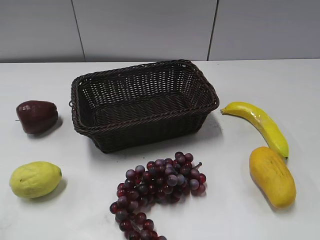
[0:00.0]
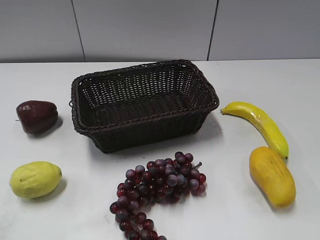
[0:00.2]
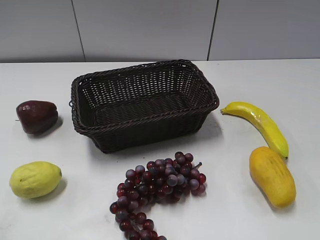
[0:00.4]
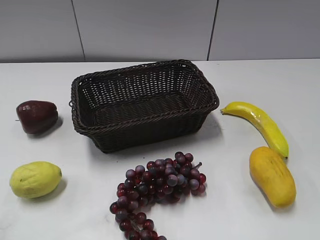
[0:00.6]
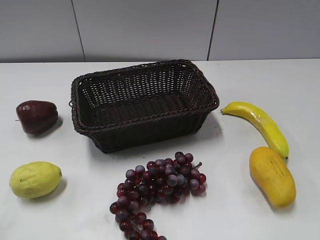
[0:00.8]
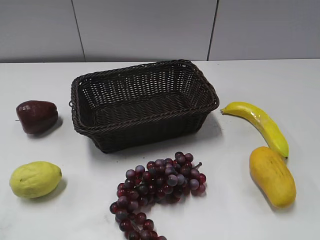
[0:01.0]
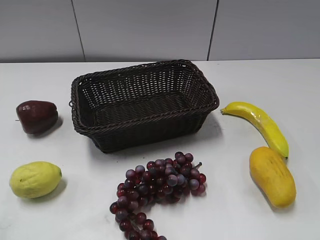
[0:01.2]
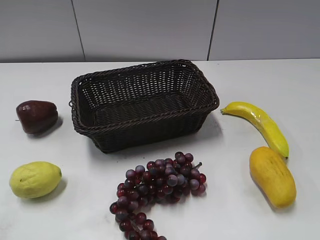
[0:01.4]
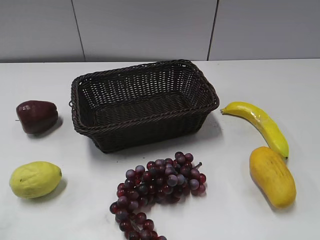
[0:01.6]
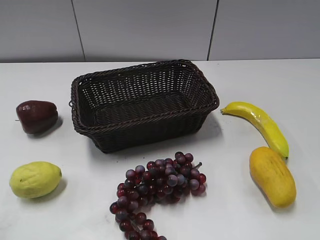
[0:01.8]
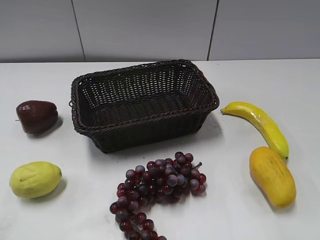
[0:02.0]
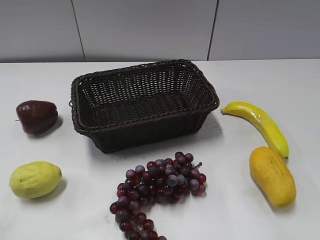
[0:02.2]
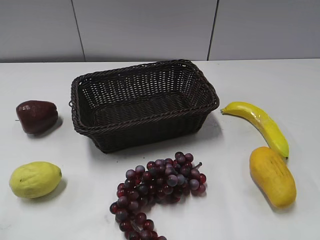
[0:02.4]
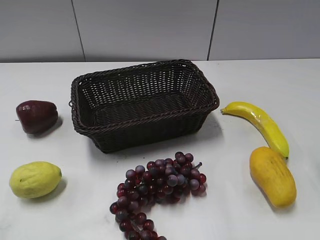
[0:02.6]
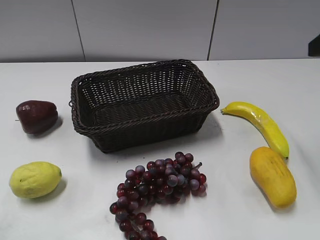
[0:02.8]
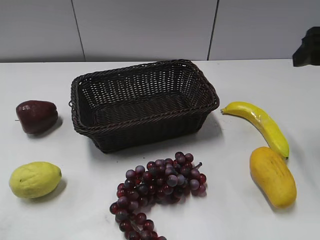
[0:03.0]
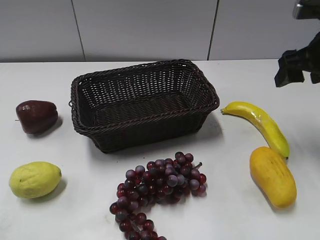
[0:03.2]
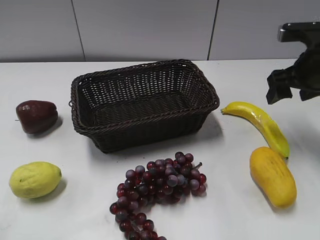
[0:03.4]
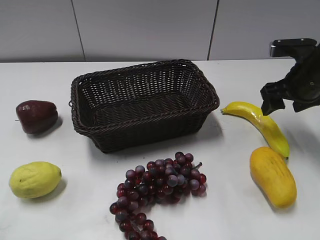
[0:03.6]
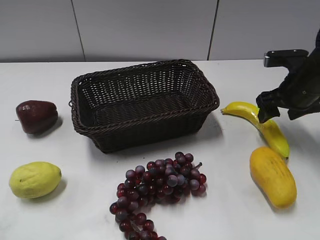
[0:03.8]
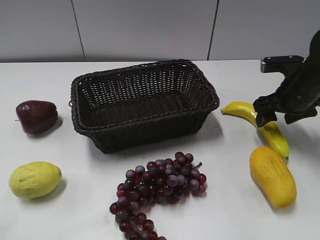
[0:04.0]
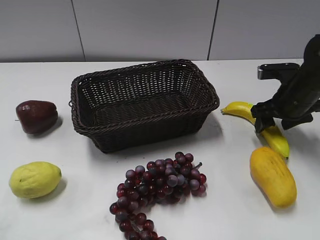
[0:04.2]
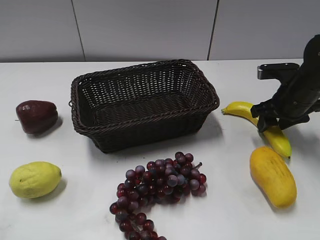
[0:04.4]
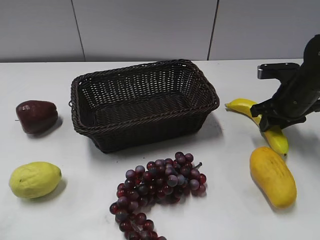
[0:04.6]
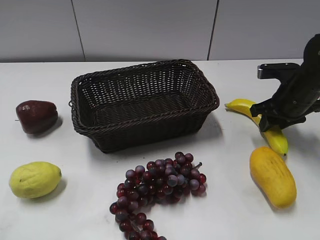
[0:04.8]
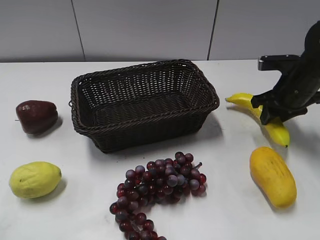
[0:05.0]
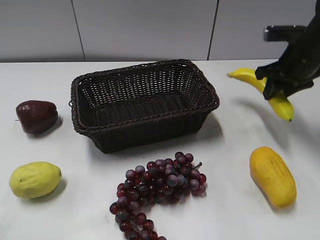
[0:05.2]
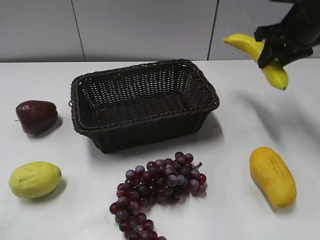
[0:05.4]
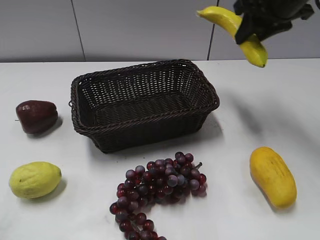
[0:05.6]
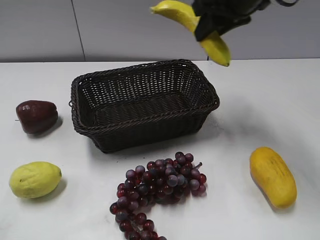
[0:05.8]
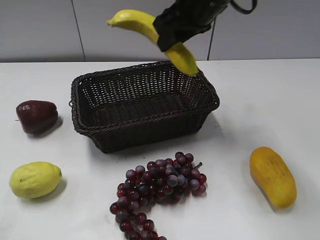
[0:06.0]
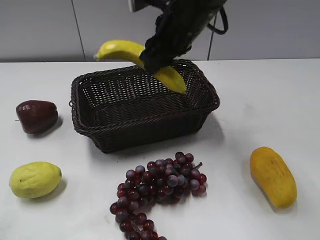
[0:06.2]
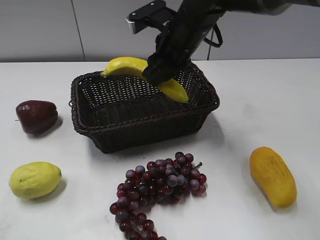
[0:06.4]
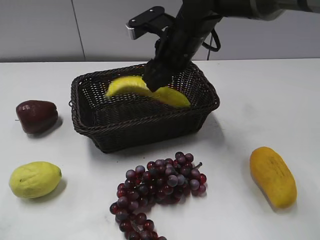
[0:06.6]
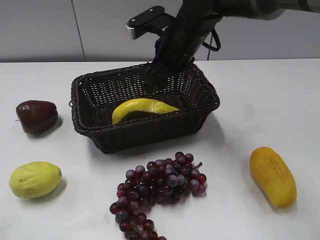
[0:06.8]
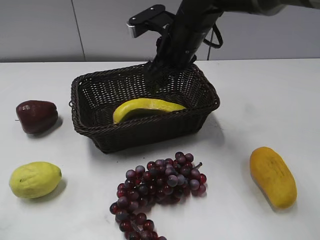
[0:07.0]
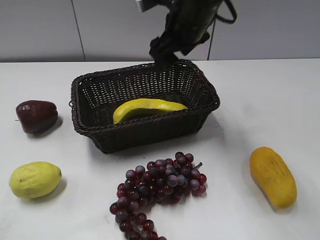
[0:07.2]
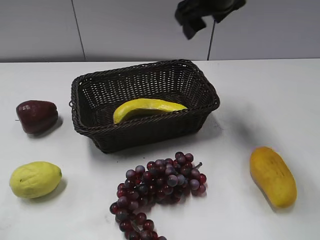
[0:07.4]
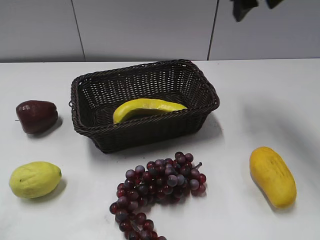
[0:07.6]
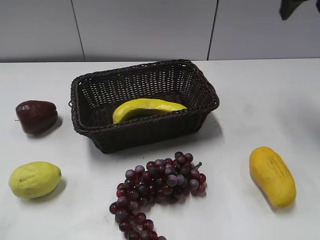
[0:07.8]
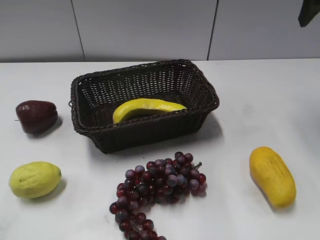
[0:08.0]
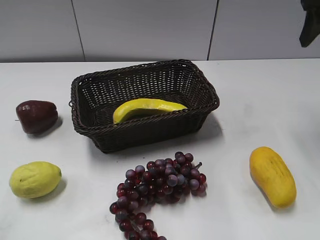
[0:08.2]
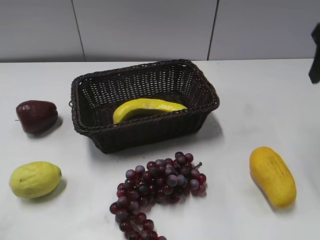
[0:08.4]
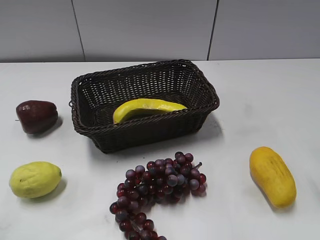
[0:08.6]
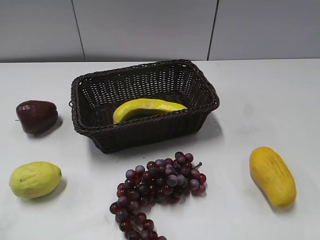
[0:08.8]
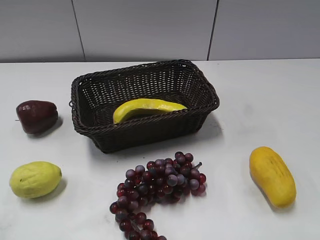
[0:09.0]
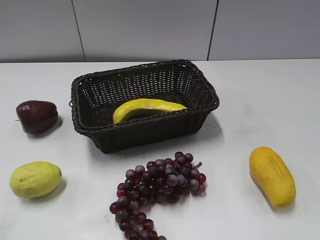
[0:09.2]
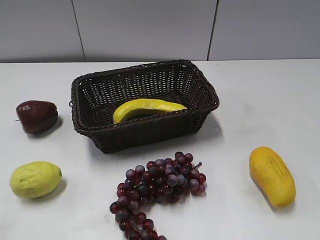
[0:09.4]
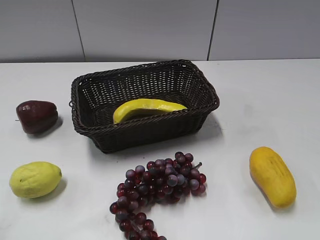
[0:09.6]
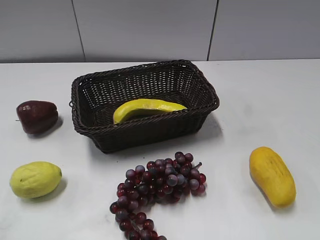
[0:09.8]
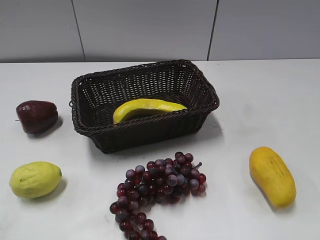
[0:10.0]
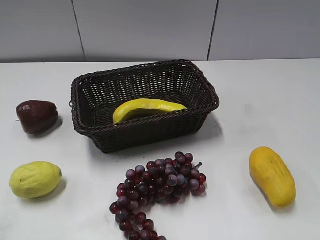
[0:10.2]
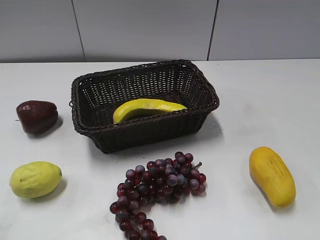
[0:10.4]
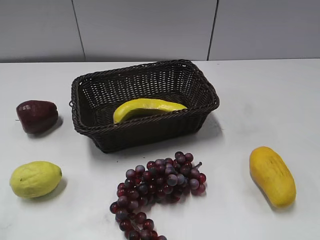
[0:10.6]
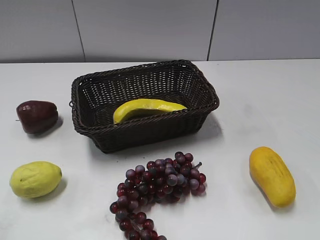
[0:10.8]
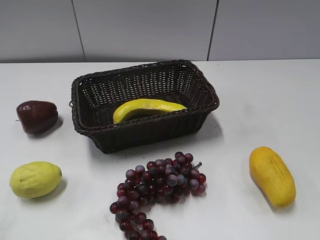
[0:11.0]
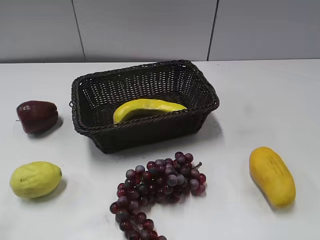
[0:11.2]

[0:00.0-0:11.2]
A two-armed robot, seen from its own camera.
Step, 0:02.6 to 0:04.4: Grasp the banana with right gripper.
Step, 0:04.8 to 0:06.8: Place the banana in the basket with right gripper.
0:01.6 to 0:03.2: The right gripper is displaced forward by about 35 cm.
0:03.2 to 0:04.8: The right gripper moves downward, roughly 10 cm, and closes.
0:04.8 to 0:06.4: The right gripper shifts some 25 cm to the left and upward.
0:06.4 to 0:08.0: The right gripper heads to the right and upward, covering roughly 25 cm, and opens its fingers.
0:08.0 to 0:09.6: The right gripper shifts approximately 35 cm backward.

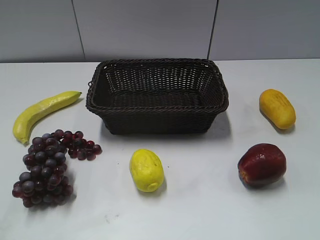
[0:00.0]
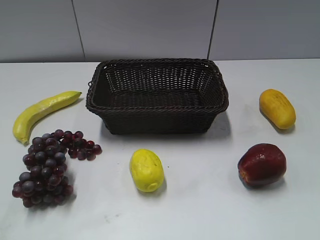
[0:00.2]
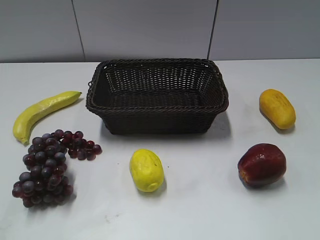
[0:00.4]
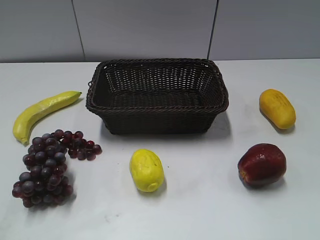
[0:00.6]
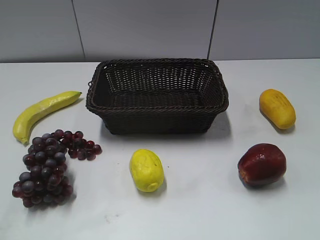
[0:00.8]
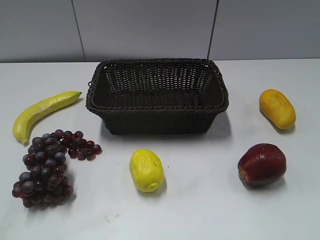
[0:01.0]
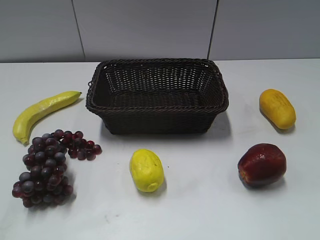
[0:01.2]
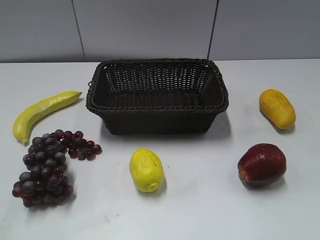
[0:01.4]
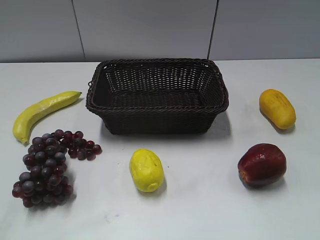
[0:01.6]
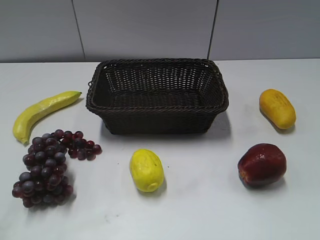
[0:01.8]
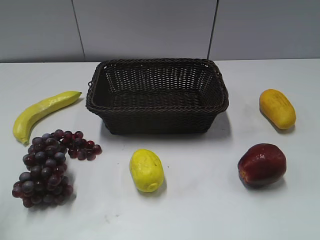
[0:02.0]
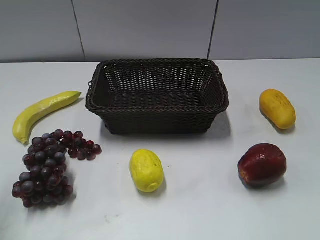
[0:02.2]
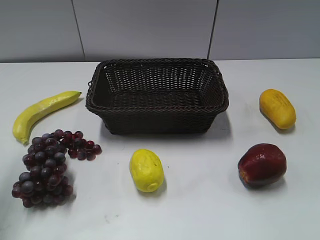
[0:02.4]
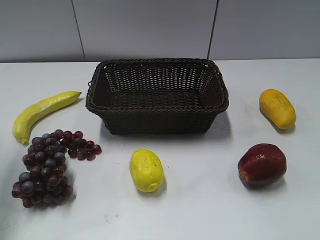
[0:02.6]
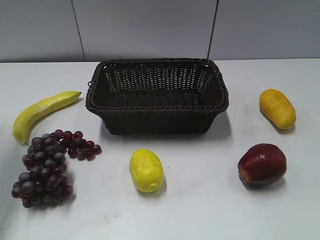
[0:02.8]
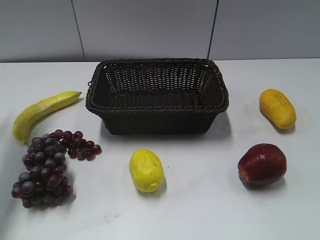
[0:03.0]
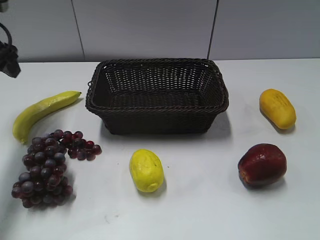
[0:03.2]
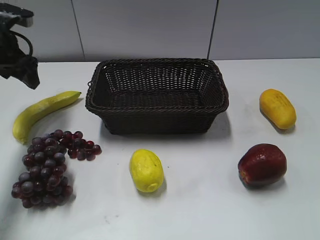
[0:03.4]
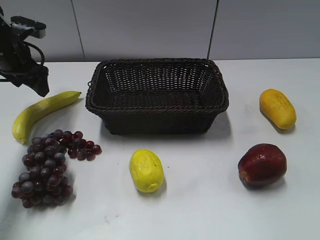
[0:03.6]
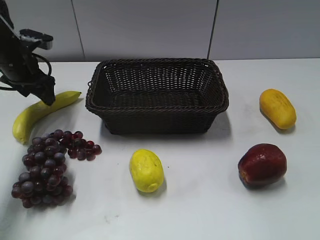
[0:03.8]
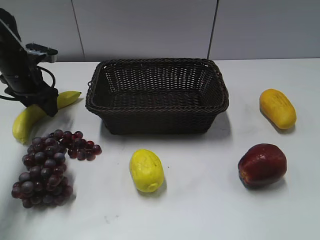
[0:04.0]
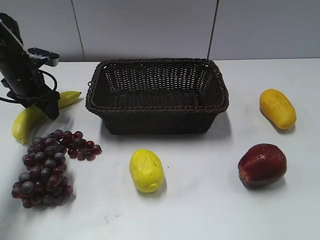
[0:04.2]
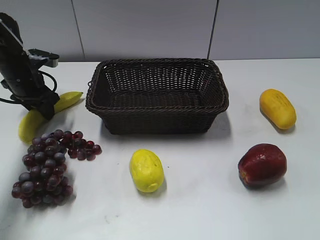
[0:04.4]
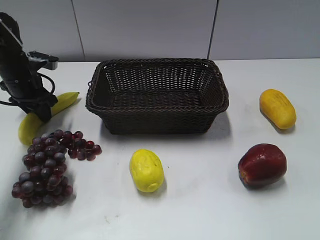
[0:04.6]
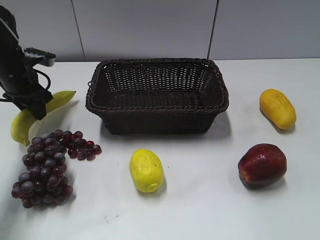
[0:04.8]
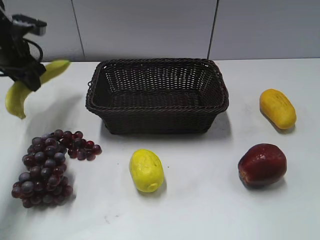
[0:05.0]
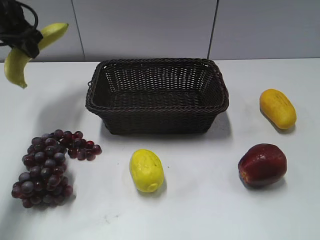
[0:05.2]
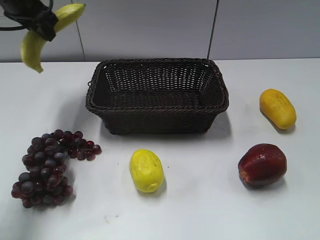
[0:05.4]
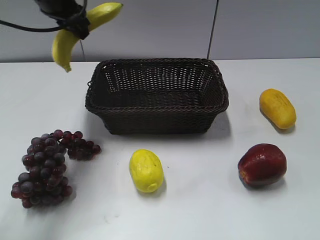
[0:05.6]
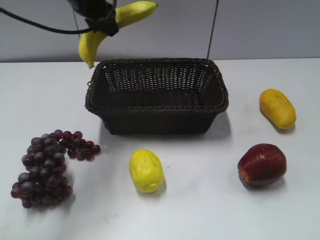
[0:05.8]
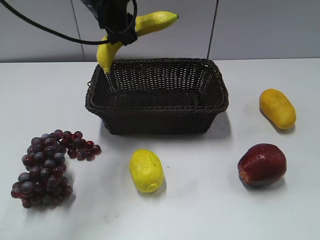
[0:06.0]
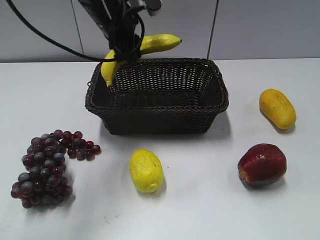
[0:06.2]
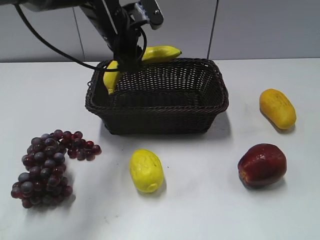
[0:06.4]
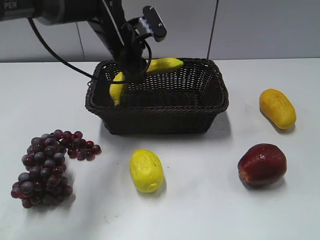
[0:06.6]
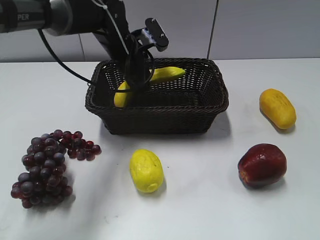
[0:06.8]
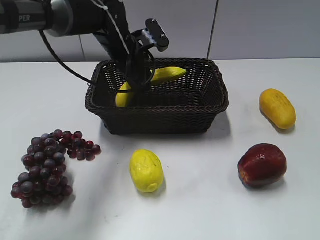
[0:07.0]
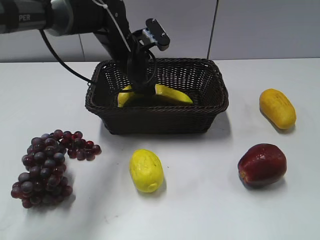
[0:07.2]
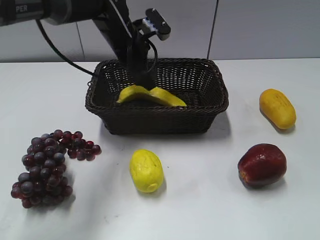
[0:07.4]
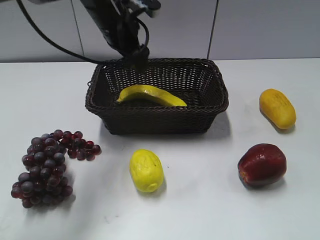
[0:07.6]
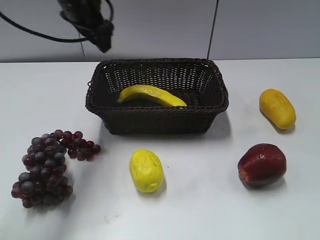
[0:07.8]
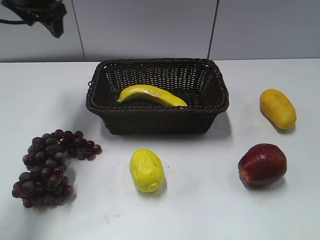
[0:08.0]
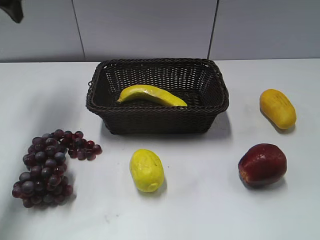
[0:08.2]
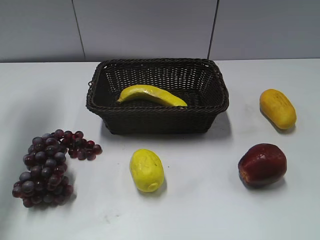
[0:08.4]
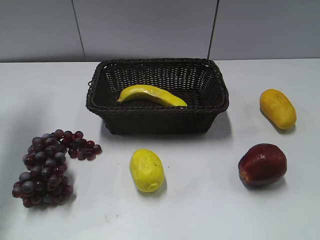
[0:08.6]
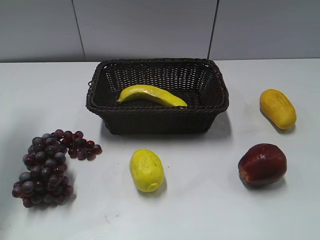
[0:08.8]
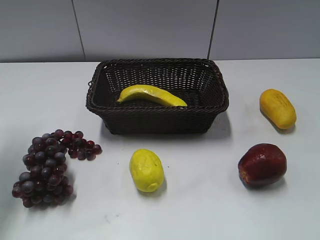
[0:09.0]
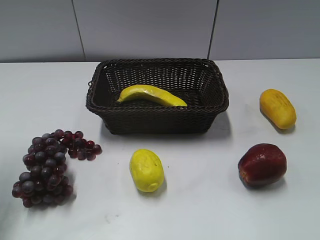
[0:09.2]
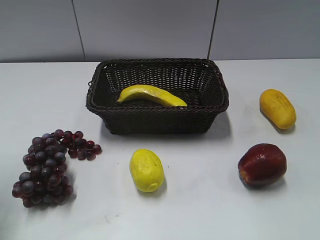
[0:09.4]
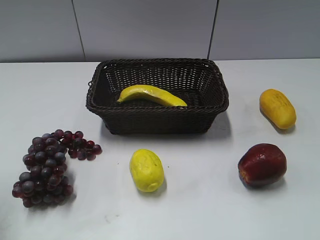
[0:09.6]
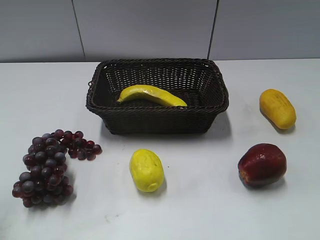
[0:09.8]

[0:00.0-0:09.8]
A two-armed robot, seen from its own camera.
Step, 0:02.6 to 0:04.6: Grasp the banana with left gripper.
Step, 0:04.8 to 0:07.2: Place the banana in the basket with left gripper.
0:01.4 to 0:02.8: The left gripper goes roughly 30 cm forward.
0:02.8 to 0:04.2: The left gripper goes some 20 cm downward and forward.
0:04.2 to 0:05.6: The left gripper heads upward and to the right, covering approximately 20 cm, and closes.
0:05.6 to 0:07.0: The left gripper travels downward and to the right by roughly 15 cm.
0:07.0 to 0:08.4: The left gripper heads to the left and upward, covering about 30 cm, and opens its fingers.
0:08.4 to 0:09.8: The left gripper is displaced backward by about 30 cm.

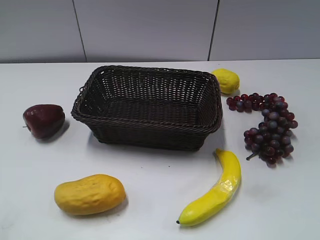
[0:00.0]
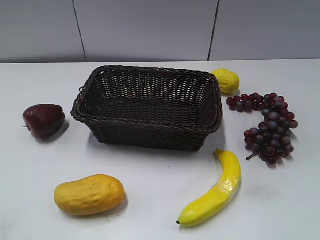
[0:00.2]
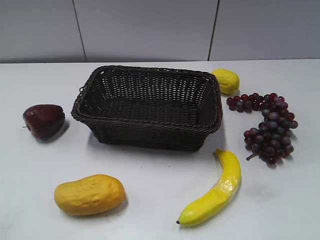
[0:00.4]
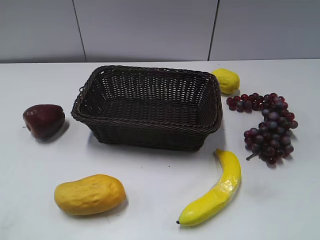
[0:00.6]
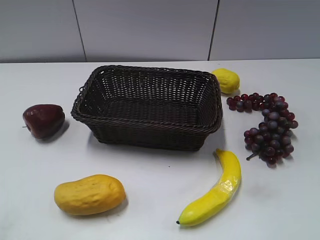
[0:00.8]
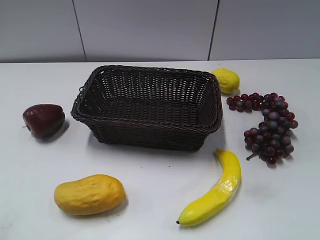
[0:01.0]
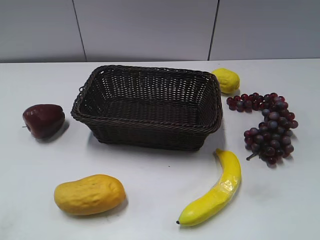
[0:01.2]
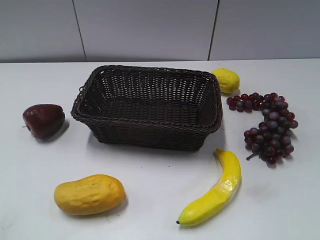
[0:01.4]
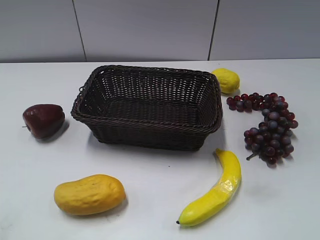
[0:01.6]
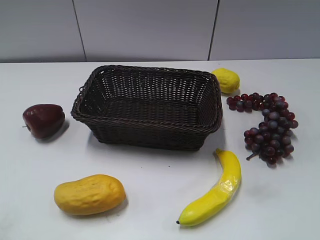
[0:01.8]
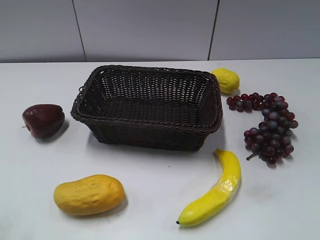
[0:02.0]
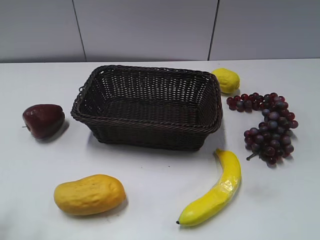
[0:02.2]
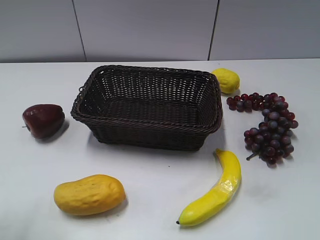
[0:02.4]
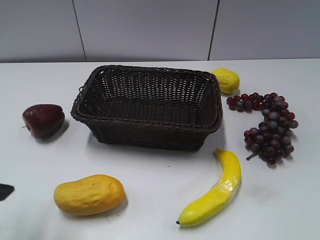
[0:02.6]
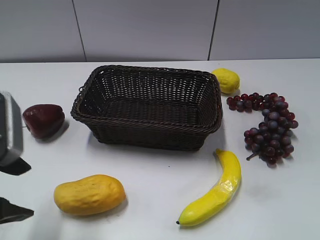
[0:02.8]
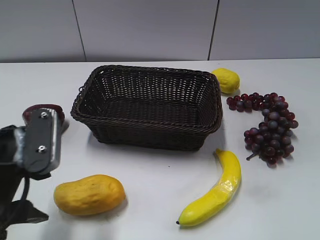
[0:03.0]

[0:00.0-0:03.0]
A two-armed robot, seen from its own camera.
0:01.6 to 0:03.0: The left gripper travels forward, to the right and downward by some 20 cm.
